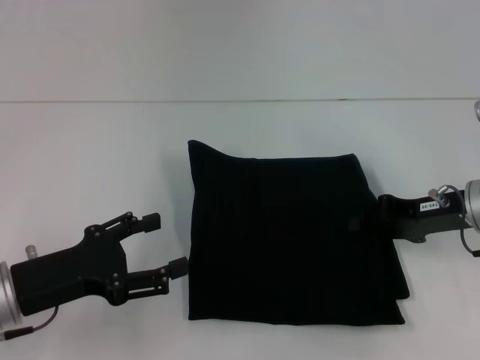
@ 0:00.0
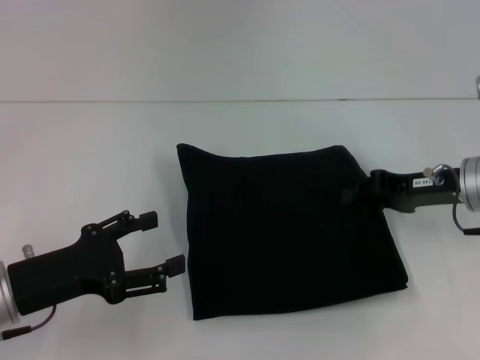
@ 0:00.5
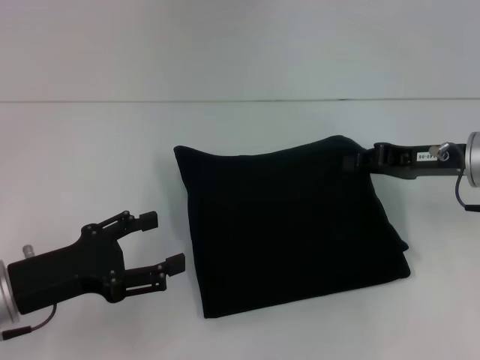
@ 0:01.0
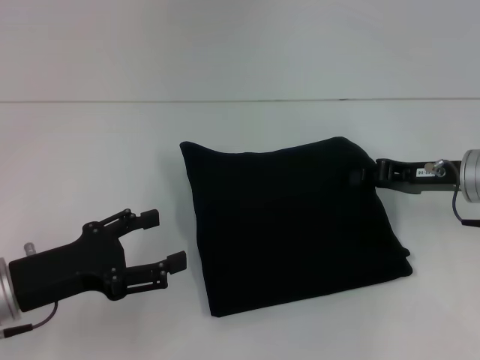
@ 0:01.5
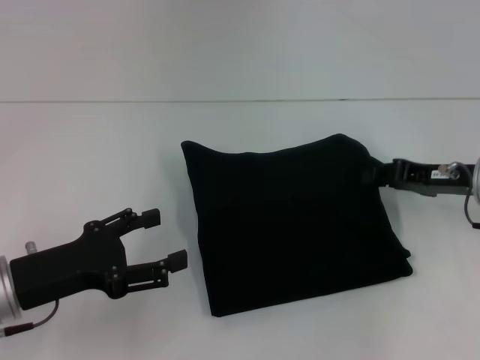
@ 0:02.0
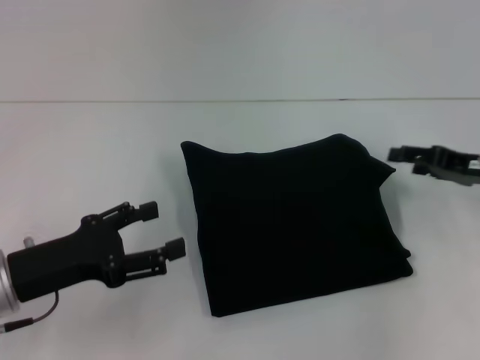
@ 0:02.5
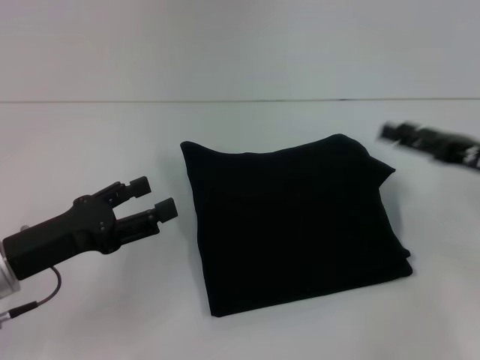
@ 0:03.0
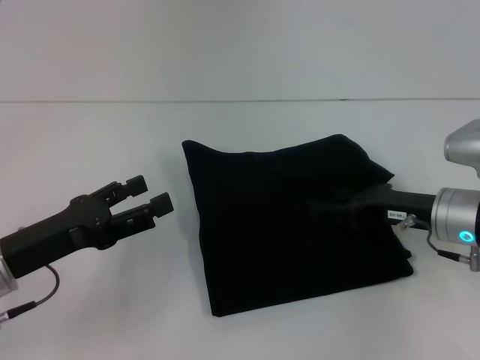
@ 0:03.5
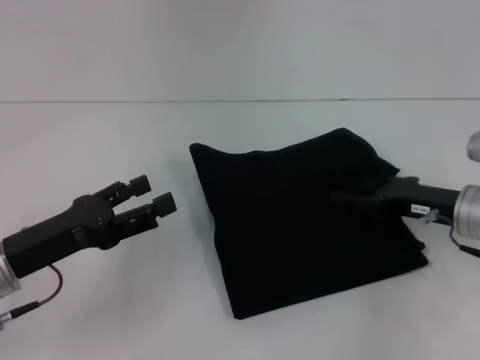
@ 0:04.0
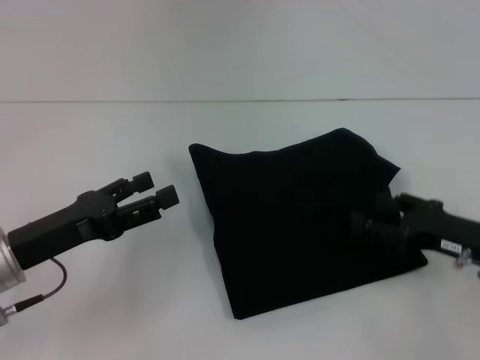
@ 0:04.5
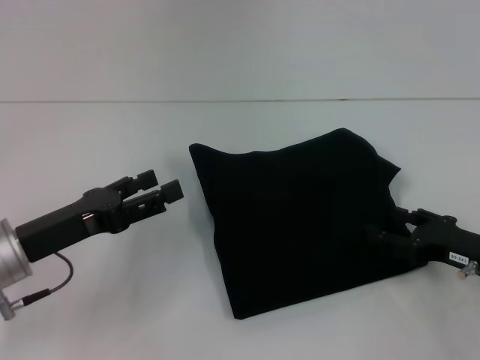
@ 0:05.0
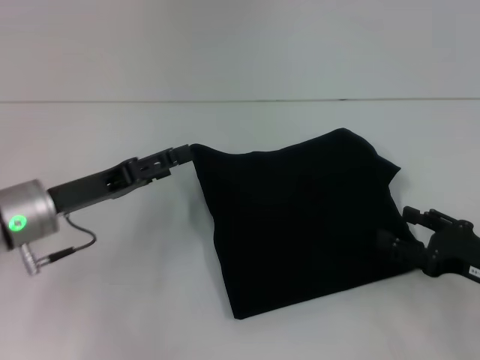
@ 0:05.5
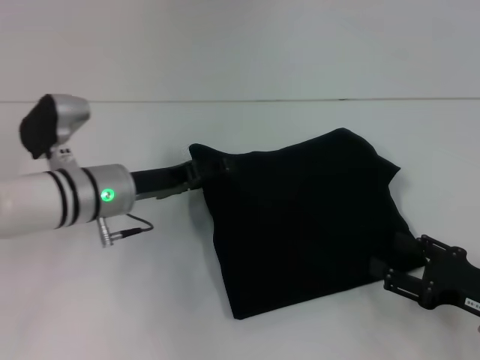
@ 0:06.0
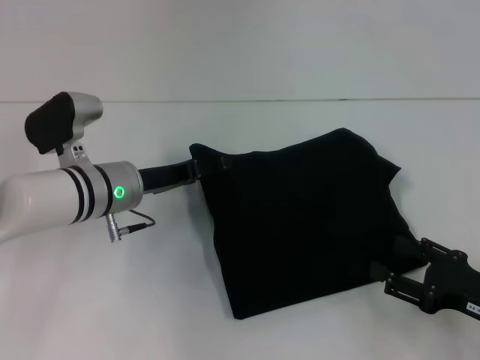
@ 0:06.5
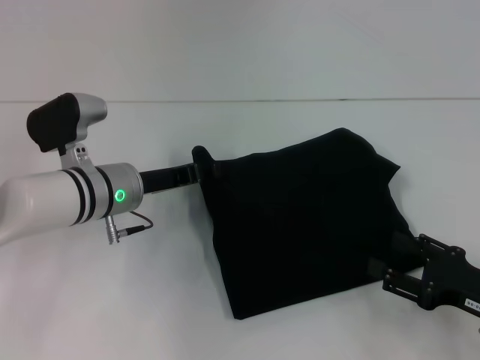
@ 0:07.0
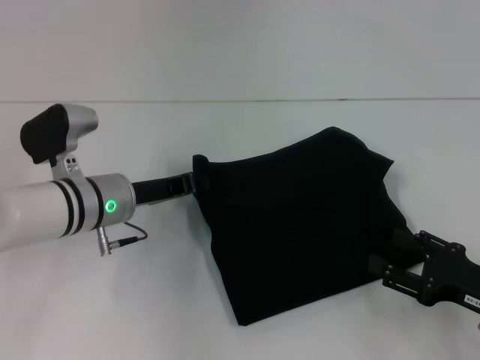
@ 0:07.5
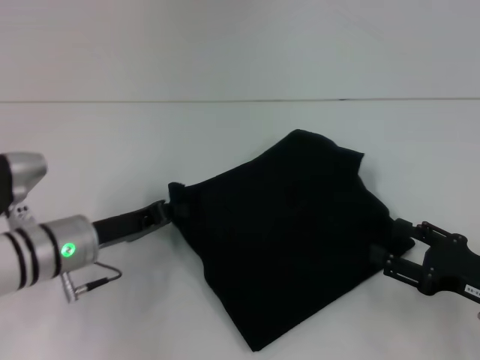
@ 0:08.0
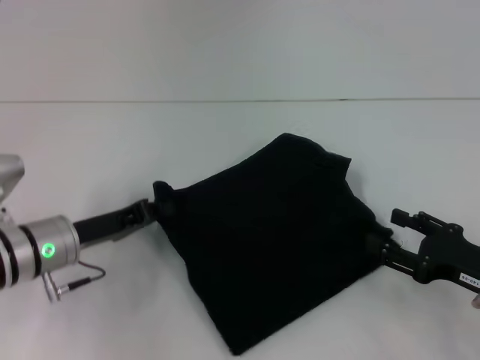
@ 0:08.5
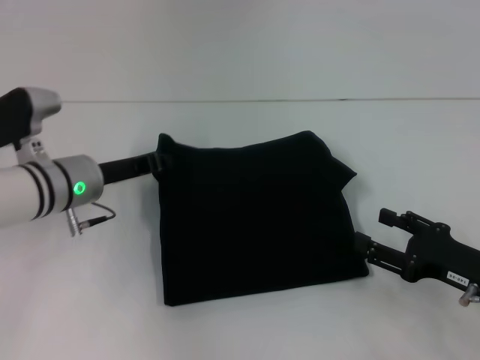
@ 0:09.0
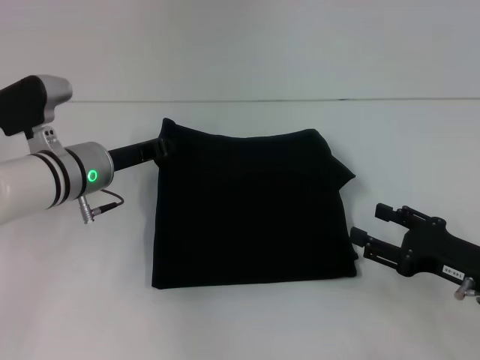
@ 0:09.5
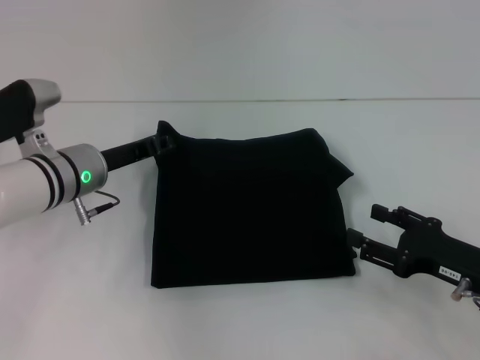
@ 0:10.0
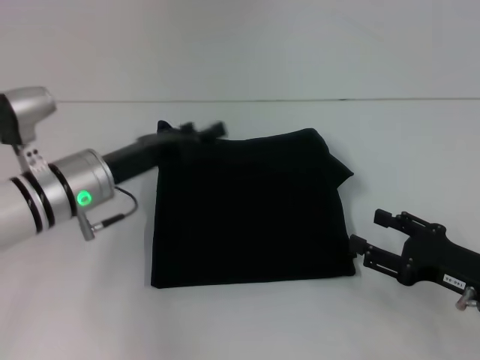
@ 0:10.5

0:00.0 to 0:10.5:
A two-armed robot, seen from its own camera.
0:02.0 to 0:04.0: The right gripper opens its fingers.
0:04.0 to 0:06.5: The right gripper goes about 10 cm backward, while the left gripper heads forward and to the right, covering about 15 cm.
0:06.5 to 0:08.5: The left gripper travels backward and to the left by about 10 cm, and closes.
0:08.5 to 0:10.5: The left gripper ends up some 5 cm from where it was, and opens up.

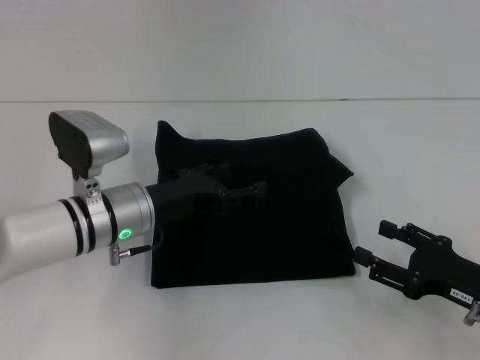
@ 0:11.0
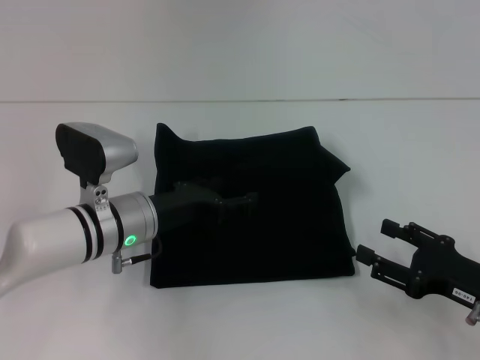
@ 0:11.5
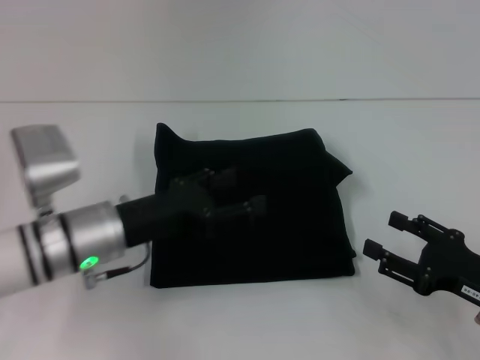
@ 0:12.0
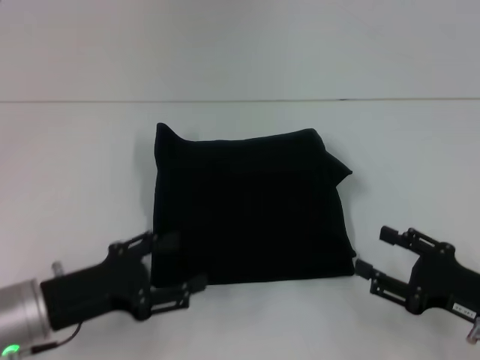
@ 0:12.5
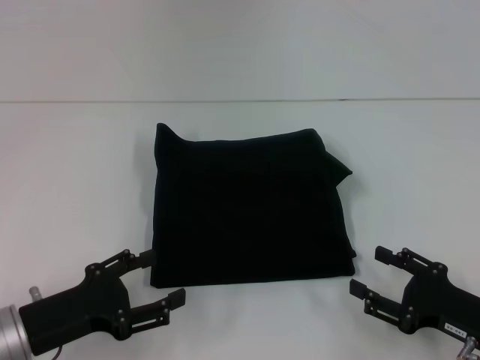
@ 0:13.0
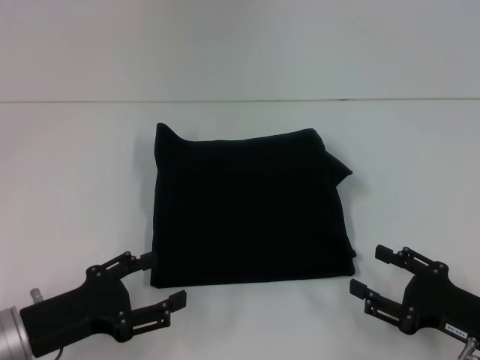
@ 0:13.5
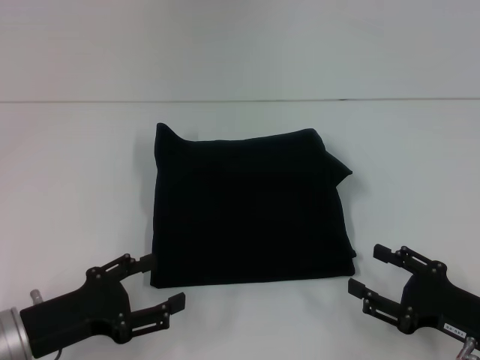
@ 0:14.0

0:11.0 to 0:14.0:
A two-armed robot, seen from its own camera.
0:11.0 to 0:12.5: The left gripper travels backward and to the left by about 15 cm.
0:12.5 to 0:14.0: The grippers stay close to where they were, moving slightly.
